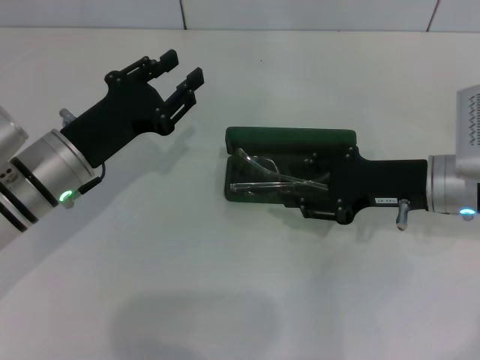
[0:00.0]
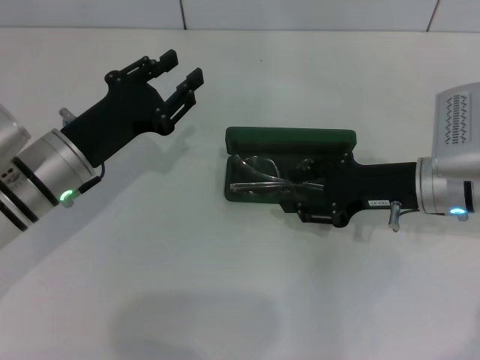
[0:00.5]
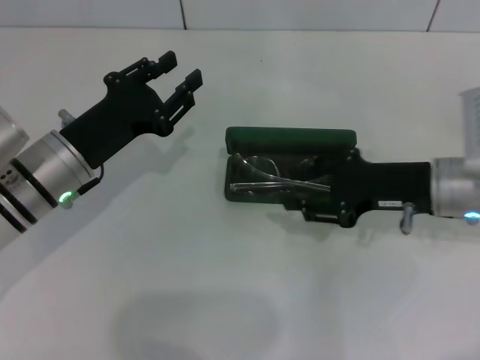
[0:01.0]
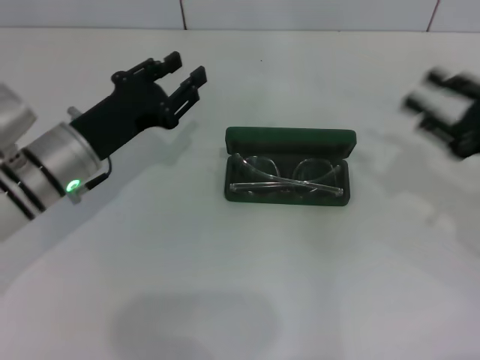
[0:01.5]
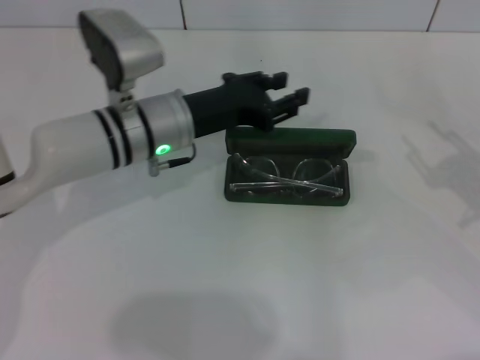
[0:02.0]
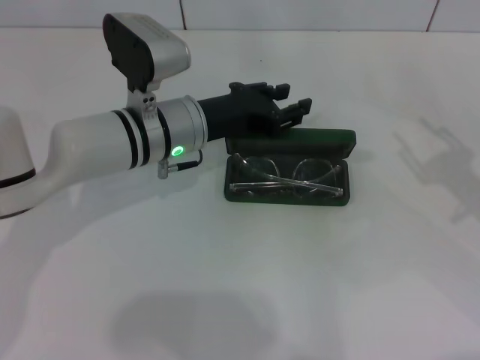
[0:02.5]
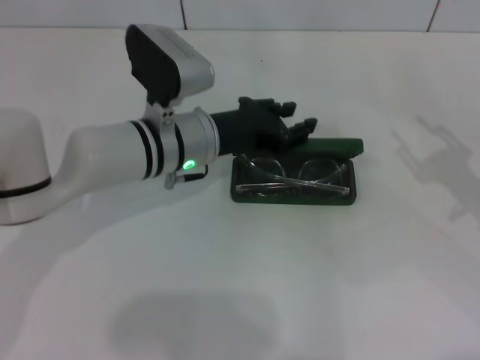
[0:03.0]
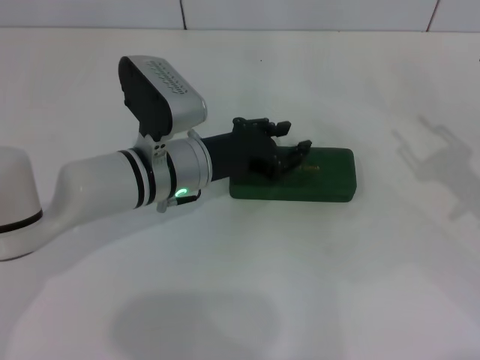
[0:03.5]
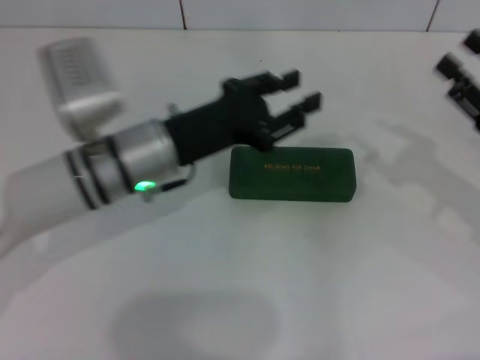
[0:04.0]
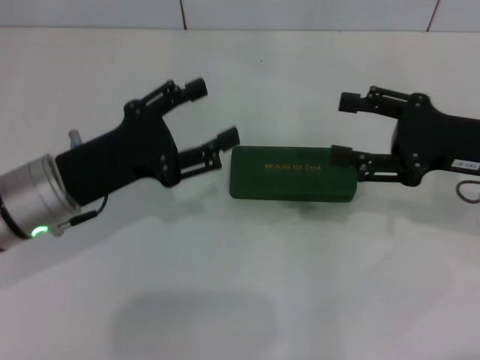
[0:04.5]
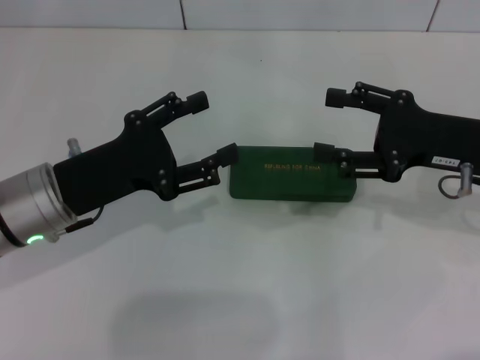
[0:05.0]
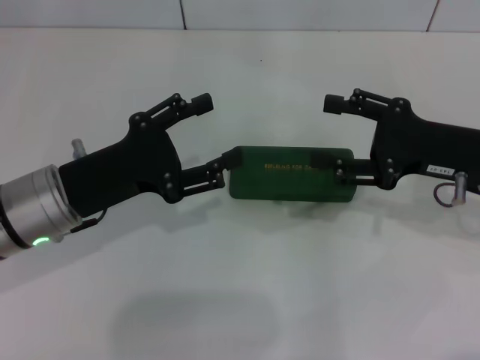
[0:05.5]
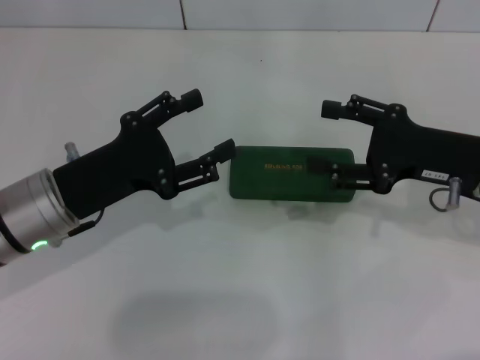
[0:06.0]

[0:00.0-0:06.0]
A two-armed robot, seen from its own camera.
Step, 0:00.0 to 0:03.5: Close the glasses case with your left hand.
0:00.0 to 0:02.0: The left gripper shifts roughly 10 cm to the right and forward. The right gripper goes some 15 cm to the right and backward.
0:02.0 to 0:04.0: The right gripper moves about 5 cm.
0:04.0 to 0:06.0: Both grippers move to the left, roughly 10 cm. The right gripper opens. Meanwhile the left gripper opens.
